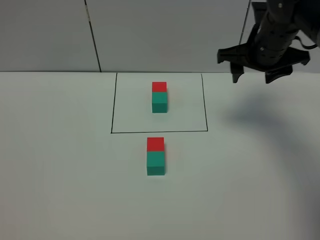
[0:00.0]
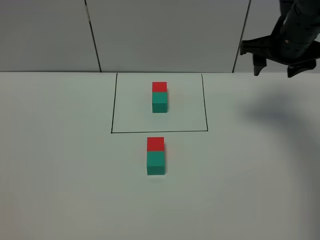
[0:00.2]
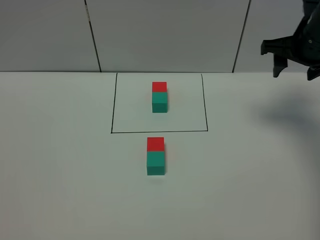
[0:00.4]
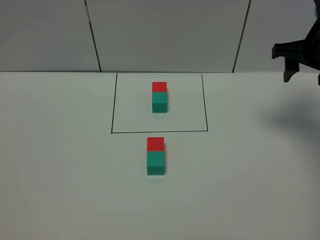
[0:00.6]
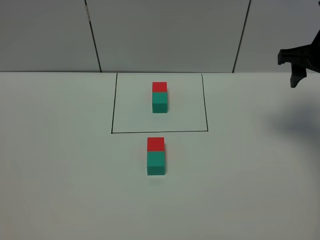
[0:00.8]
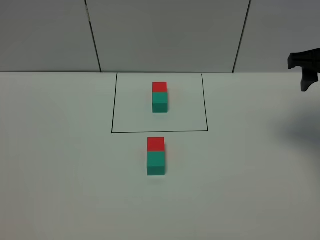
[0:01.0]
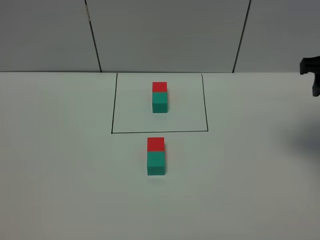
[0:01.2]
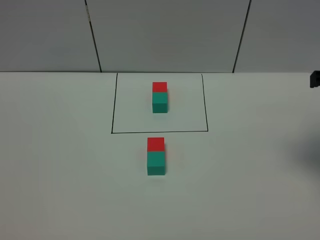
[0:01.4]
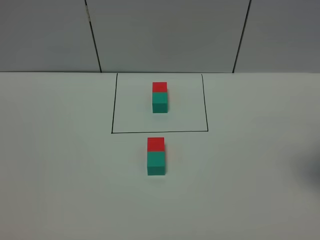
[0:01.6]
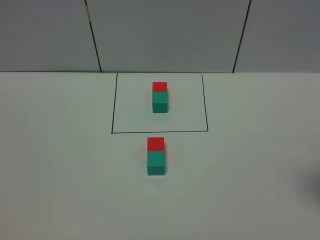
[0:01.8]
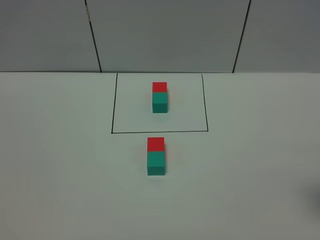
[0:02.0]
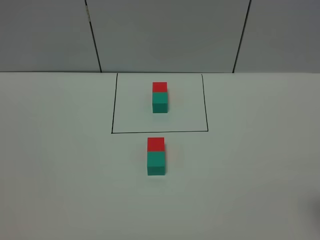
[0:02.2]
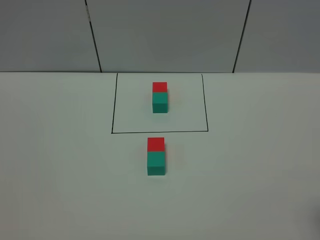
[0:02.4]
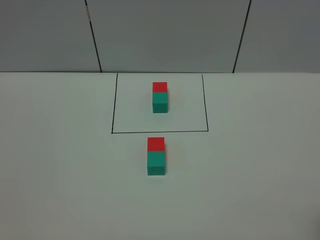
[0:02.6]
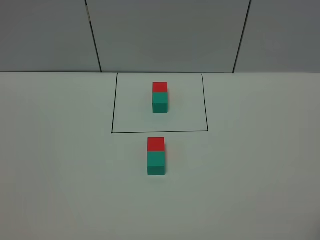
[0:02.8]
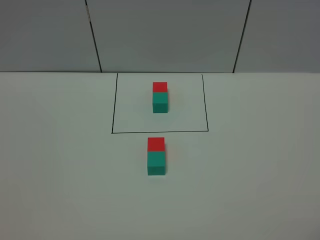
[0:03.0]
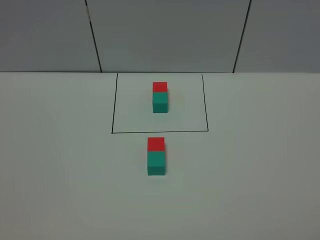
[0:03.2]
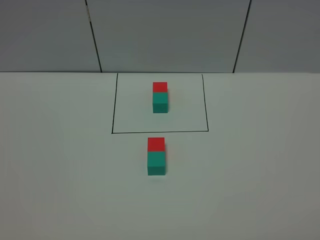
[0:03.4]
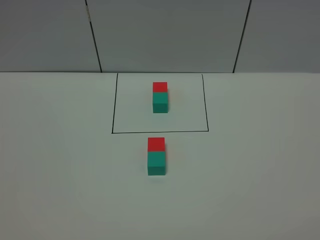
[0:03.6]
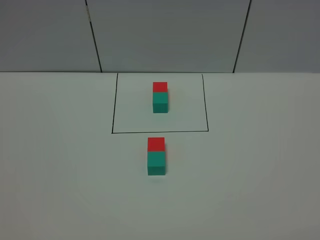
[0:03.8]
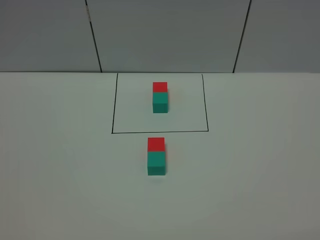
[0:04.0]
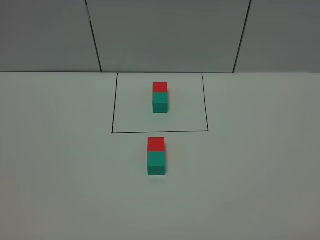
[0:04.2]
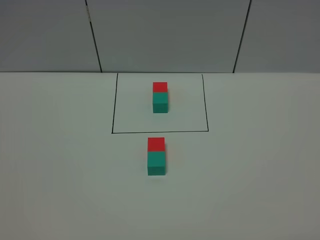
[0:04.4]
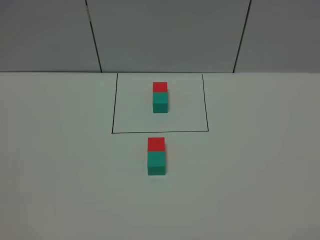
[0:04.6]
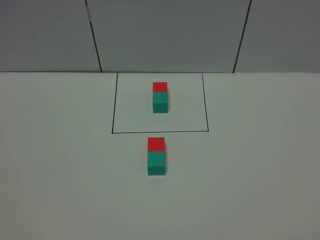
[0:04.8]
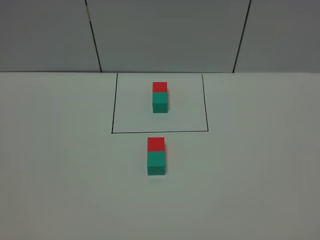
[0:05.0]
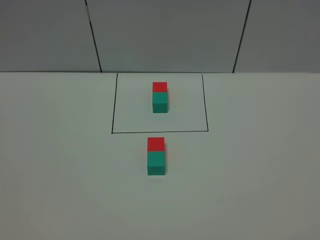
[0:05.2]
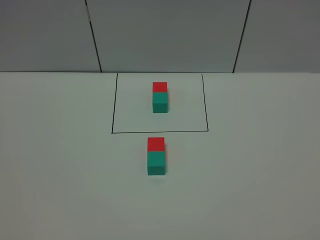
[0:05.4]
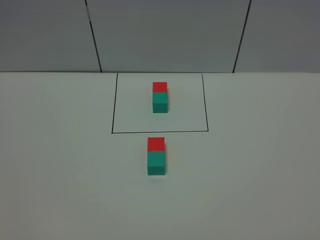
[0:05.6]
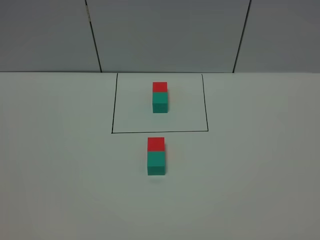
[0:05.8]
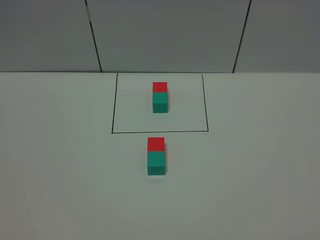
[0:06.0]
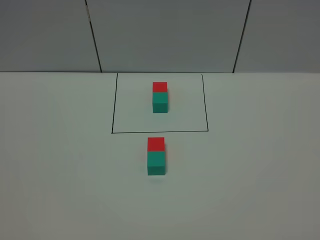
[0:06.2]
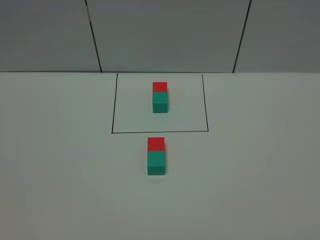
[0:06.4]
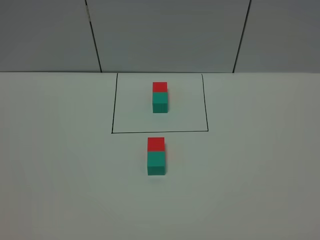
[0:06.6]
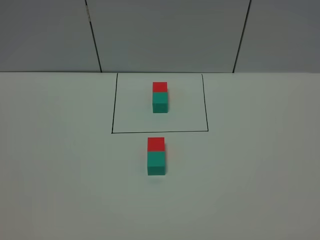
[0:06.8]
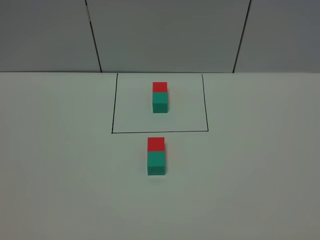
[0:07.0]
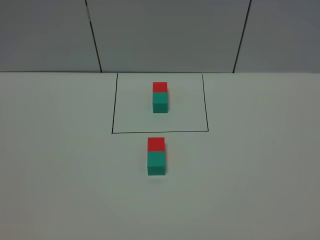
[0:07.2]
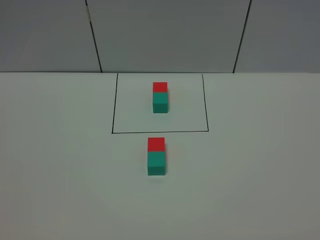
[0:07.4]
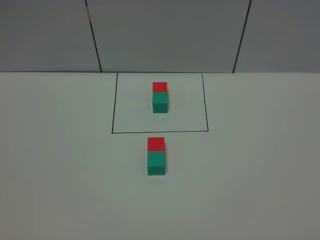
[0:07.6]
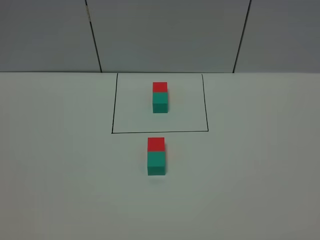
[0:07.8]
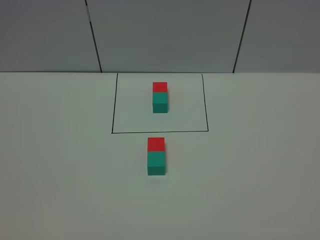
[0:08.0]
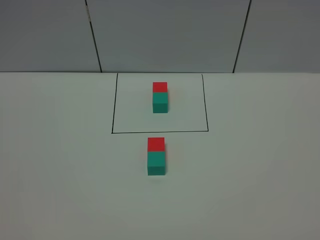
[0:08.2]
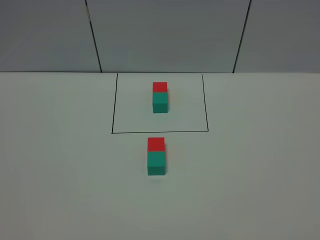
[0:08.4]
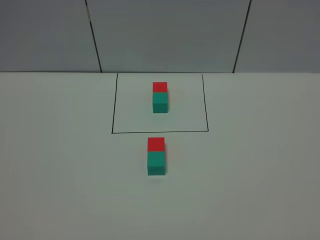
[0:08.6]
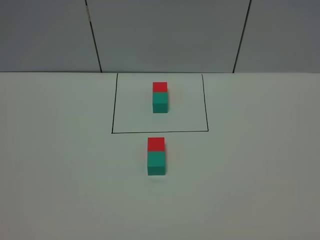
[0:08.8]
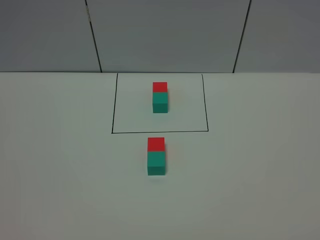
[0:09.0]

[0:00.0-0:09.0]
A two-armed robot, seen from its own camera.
Task of the whole recording: According to the building block template in front, assemble the scattered blocks together.
0:00.0 to 0:01.6: The right gripper goes roughly 20 cm backward and to the right.
0:07.6 to 0:09.0: The two grippers keep their place.

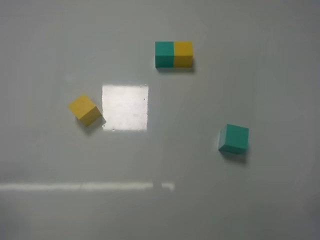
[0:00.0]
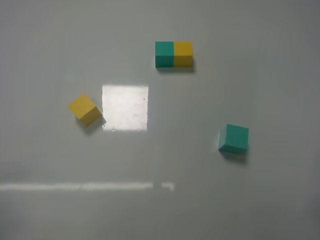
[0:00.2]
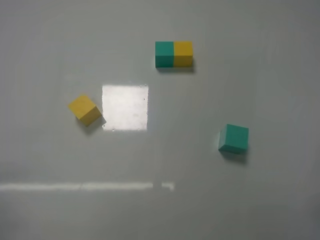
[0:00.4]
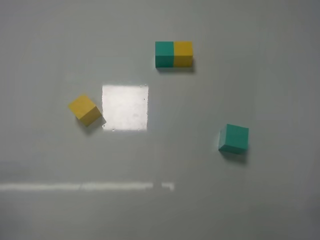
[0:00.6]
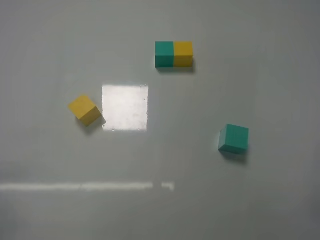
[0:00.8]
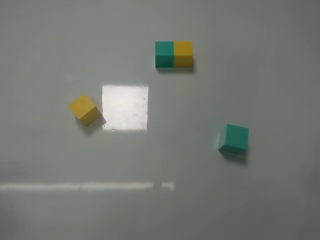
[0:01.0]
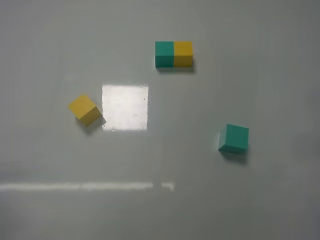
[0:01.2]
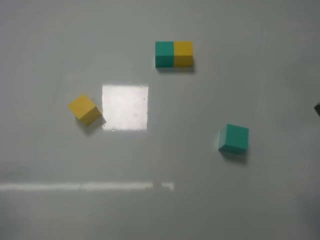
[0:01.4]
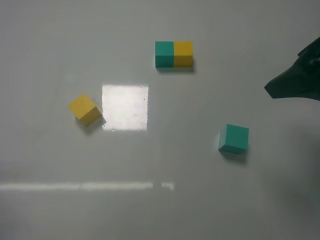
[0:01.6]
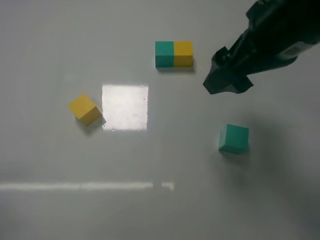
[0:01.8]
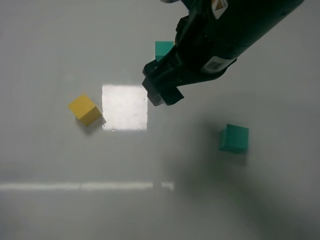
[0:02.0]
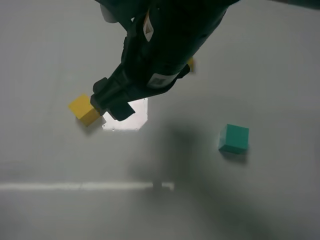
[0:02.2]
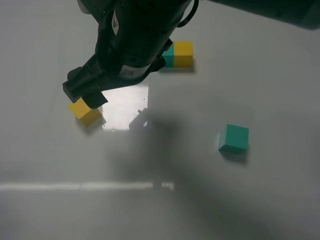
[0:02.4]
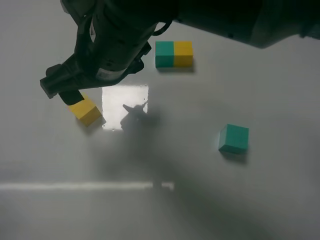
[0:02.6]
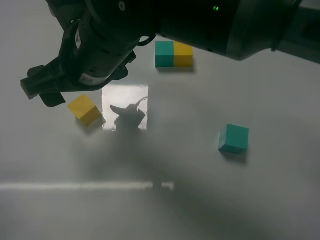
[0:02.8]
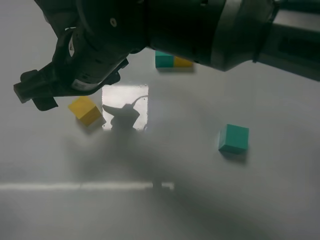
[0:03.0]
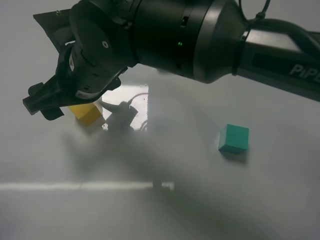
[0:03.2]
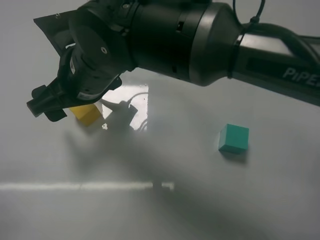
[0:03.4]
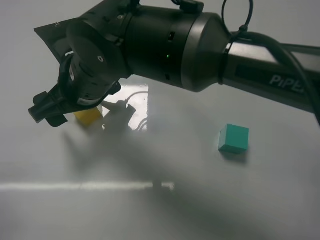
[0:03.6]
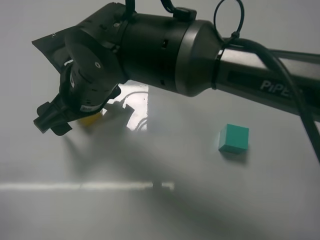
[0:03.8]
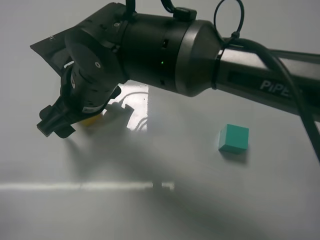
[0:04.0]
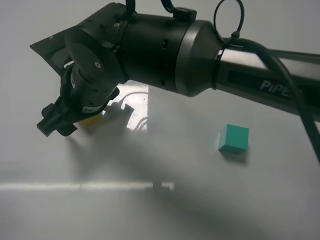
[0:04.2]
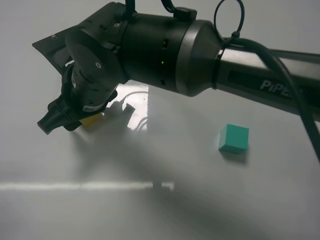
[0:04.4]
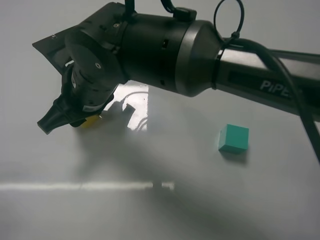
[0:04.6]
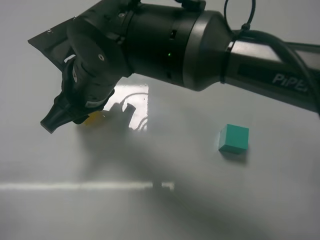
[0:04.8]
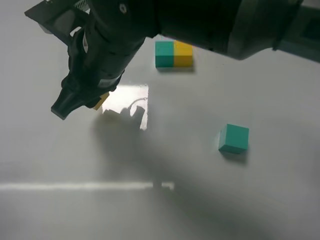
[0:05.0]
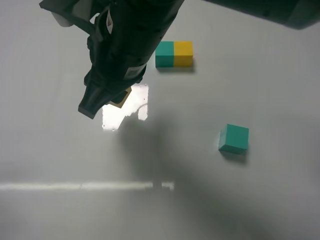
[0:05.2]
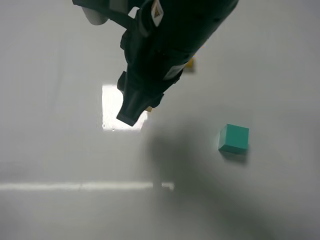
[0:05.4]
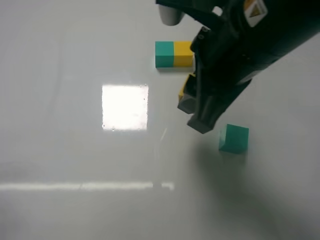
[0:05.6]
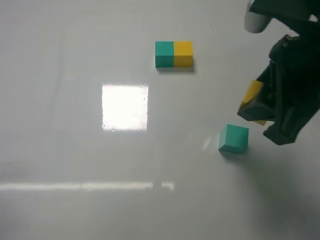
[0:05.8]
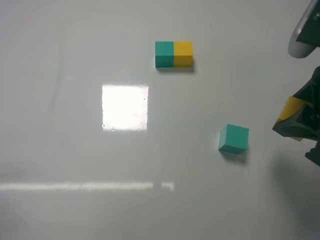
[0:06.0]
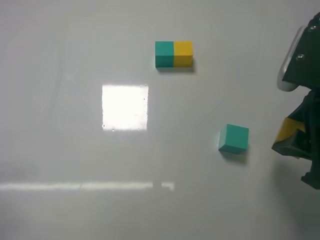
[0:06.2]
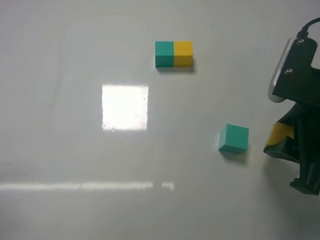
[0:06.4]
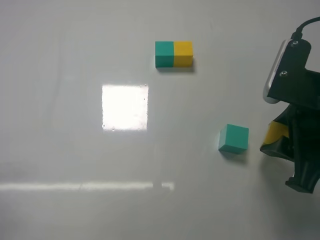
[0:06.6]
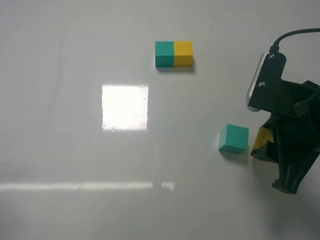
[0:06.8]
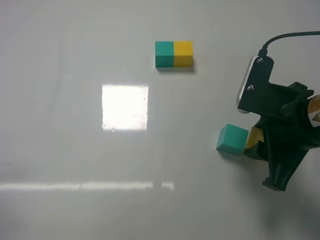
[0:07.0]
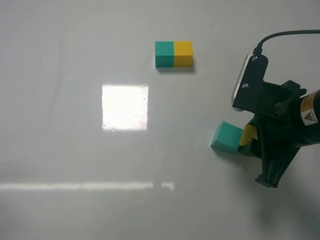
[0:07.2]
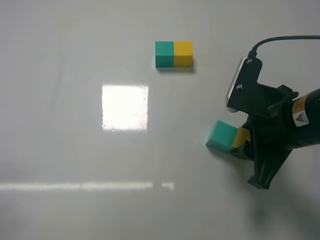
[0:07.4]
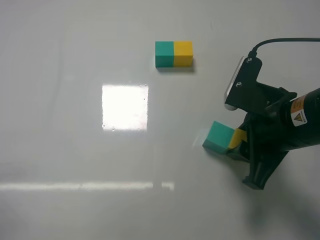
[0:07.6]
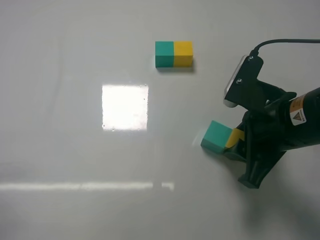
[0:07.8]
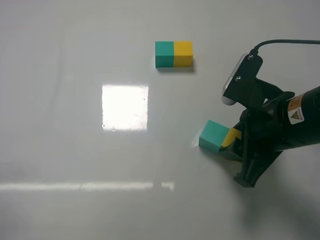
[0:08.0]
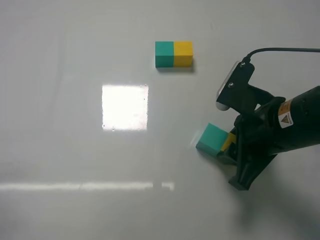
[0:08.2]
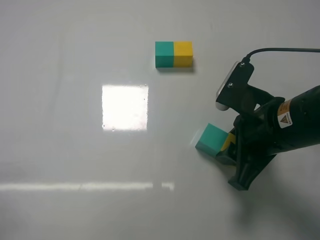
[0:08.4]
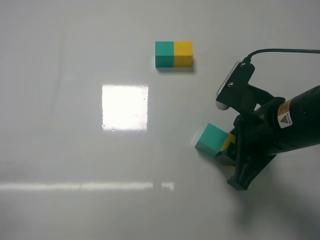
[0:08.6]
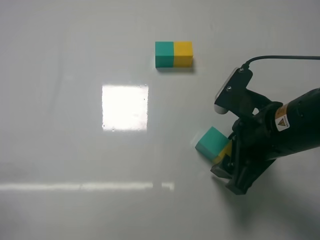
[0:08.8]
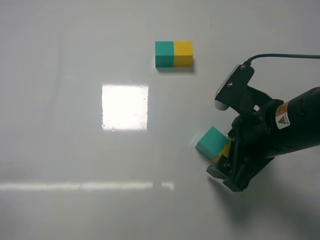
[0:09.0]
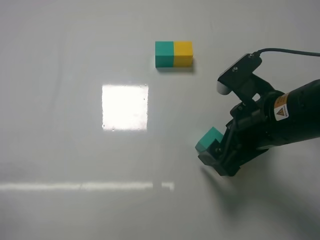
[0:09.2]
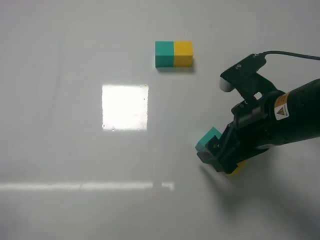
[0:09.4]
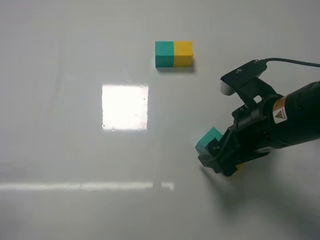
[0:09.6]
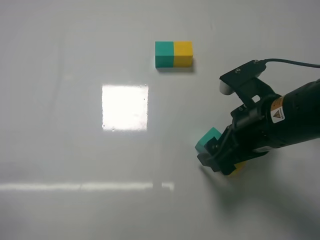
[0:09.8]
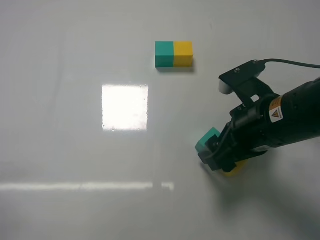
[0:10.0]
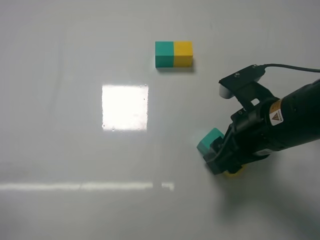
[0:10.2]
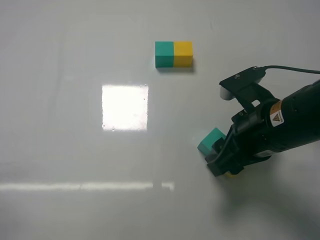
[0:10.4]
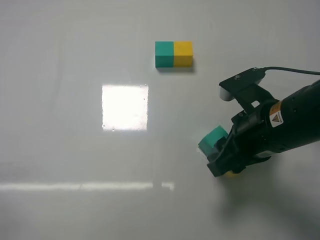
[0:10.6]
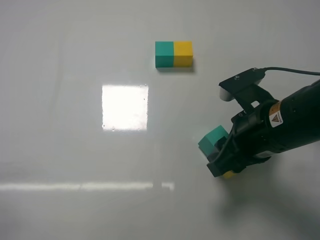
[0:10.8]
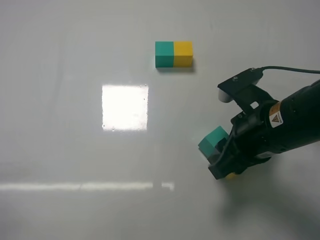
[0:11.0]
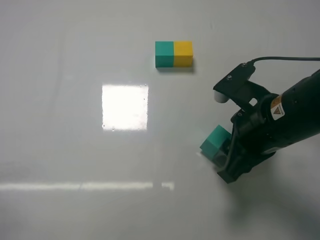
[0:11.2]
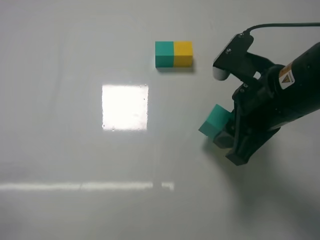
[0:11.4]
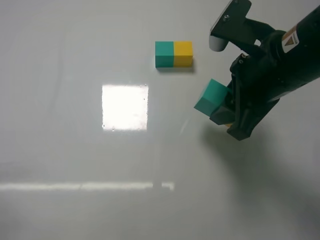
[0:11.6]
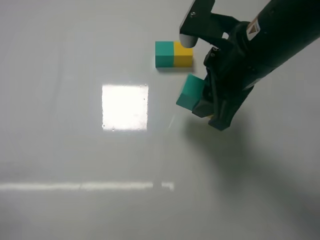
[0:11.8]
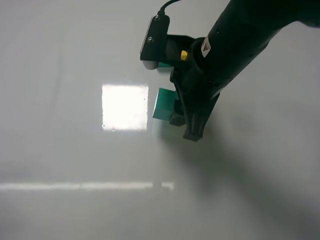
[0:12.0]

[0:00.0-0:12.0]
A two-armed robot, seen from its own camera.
Task of the whole recording: According to the building block template in front, assemble the scattered blocks together.
Step, 0:00.0 to 0:04.4: Grasp the yellow block with right gripper.
Step, 0:04.6 to 0:09.0: Put the yellow cube on the right of the green cube with the right gripper.
0:00.0 to 0:01.6: The right gripper moves forward, upward and to the left, some 25 cm.
0:01.6 to 0:03.0: The right gripper shifts approximately 30 cm to the left.
0:03.0 to 0:04.4: The right gripper closes its fingers.
0:04.4 to 0:06.0: The right gripper travels to the right by approximately 30 cm.
0:06.0 to 0:07.6: The right gripper goes some 5 cm downward.
0:07.6 to 0:09.0: The right gripper opens up.
0:09.0 to 0:10.4: The right gripper closes.
0:10.4 to 0:12.0: The right gripper is displaced to the left and upward by about 10 cm.

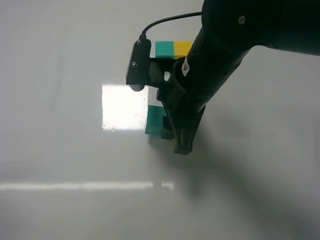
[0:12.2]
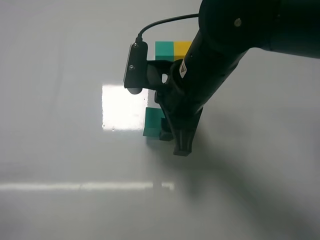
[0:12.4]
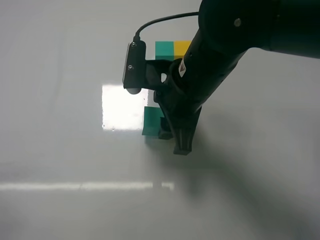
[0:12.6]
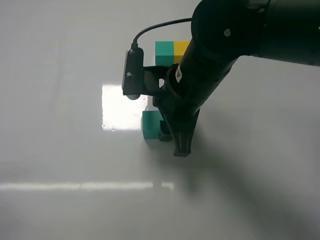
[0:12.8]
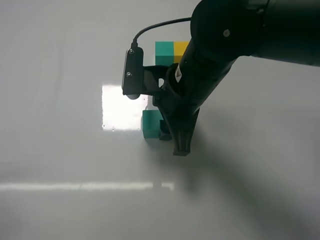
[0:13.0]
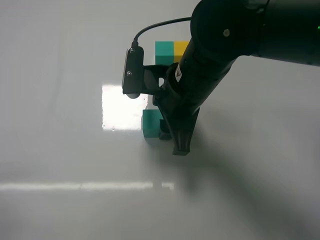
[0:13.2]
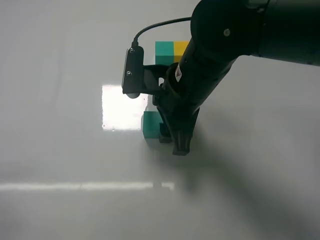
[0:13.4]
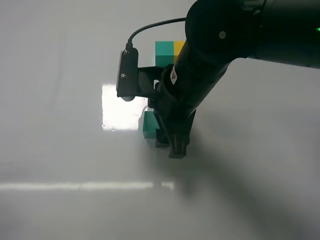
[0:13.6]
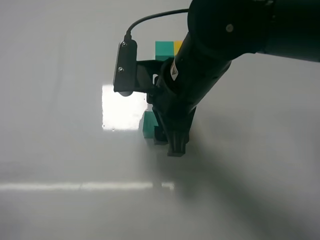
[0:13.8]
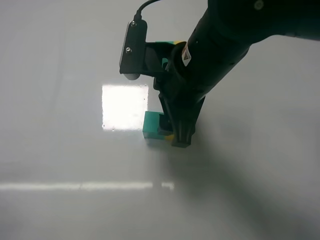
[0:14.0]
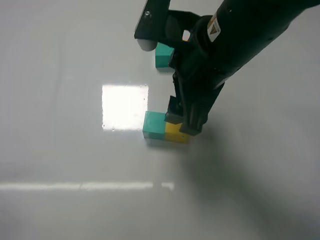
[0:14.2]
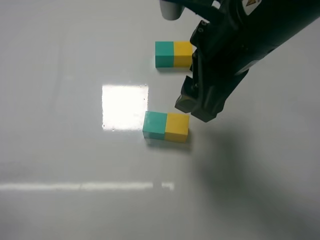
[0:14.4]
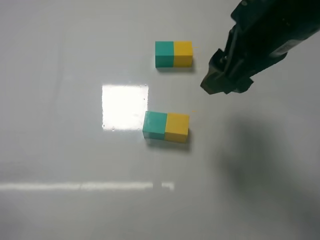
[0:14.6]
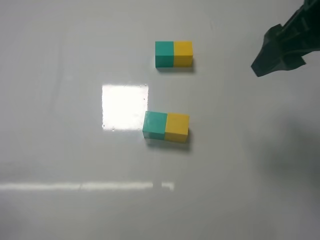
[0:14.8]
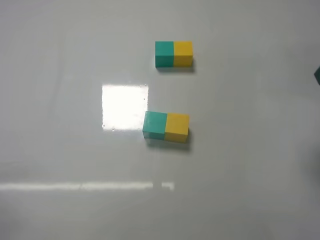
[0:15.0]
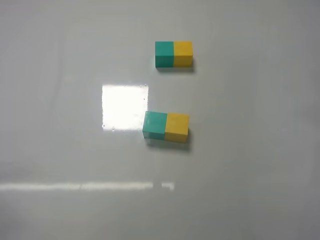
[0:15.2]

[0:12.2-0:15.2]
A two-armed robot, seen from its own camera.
Task of the whole recording: According to the building block template in front, assemble the scattered blocks together.
0:12.2 to 0:13.8: The right gripper opens its fingers.
0:13.8 to 0:15.2: The right gripper heads to the right, covering approximately 25 cm.
